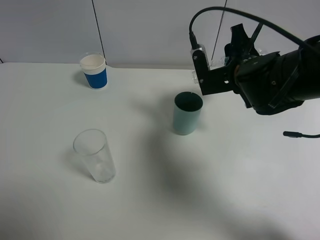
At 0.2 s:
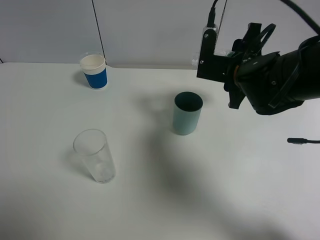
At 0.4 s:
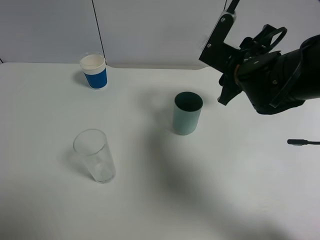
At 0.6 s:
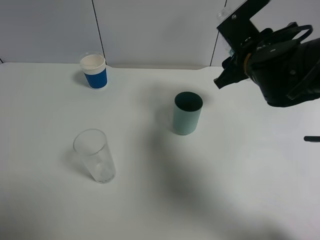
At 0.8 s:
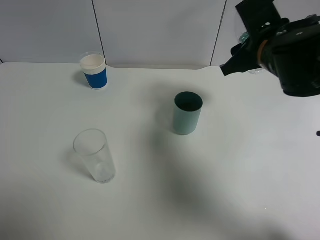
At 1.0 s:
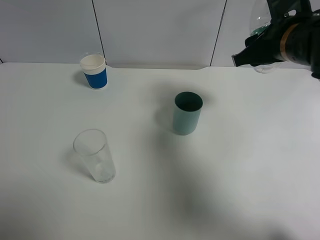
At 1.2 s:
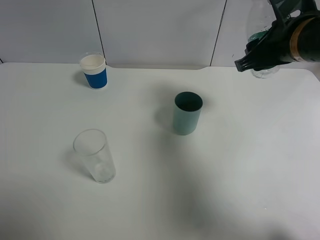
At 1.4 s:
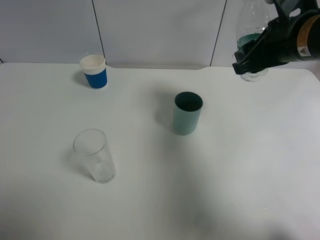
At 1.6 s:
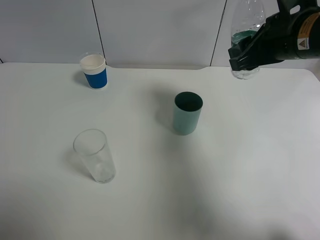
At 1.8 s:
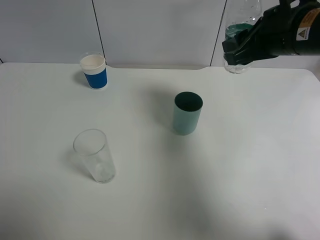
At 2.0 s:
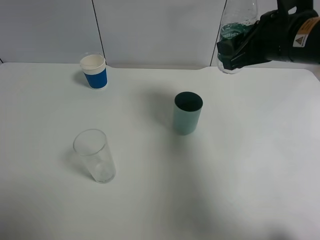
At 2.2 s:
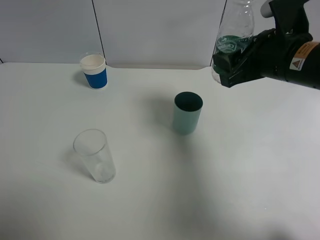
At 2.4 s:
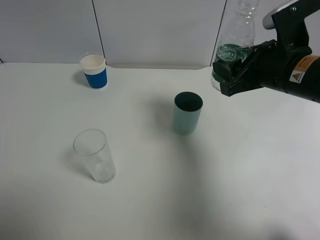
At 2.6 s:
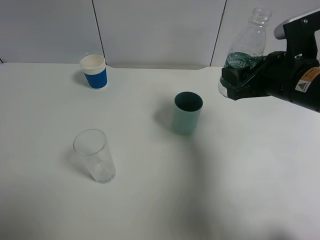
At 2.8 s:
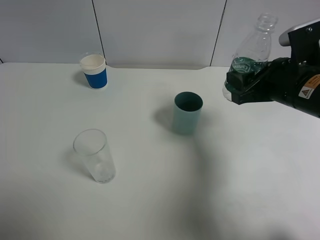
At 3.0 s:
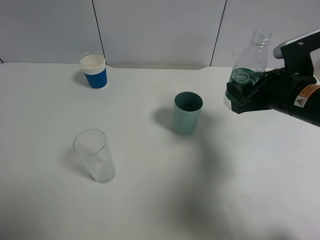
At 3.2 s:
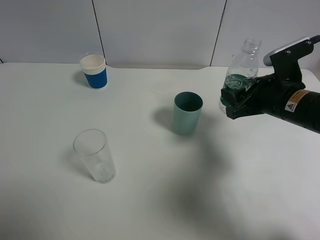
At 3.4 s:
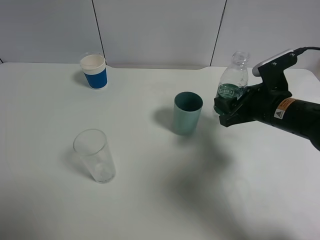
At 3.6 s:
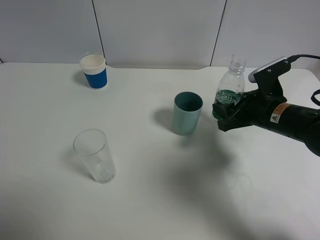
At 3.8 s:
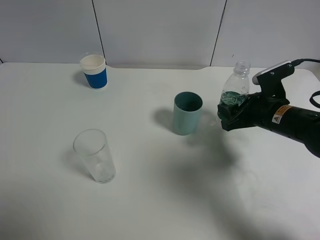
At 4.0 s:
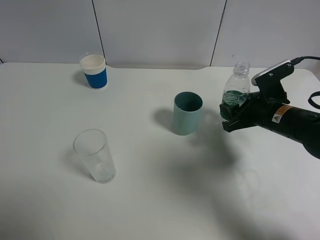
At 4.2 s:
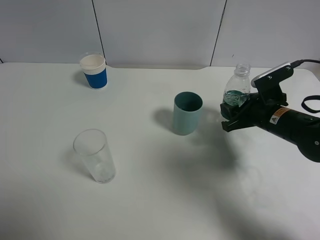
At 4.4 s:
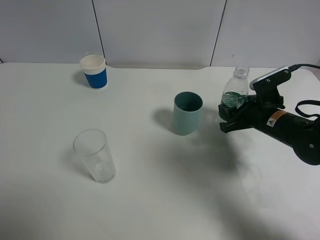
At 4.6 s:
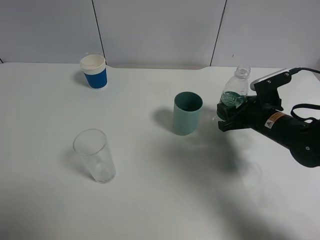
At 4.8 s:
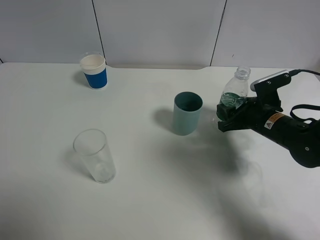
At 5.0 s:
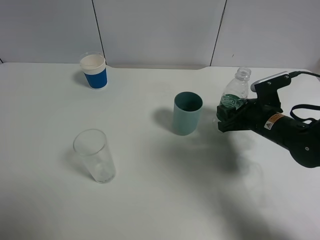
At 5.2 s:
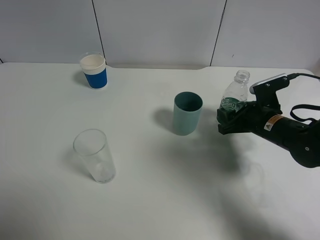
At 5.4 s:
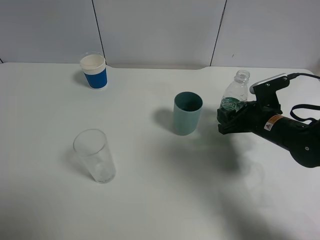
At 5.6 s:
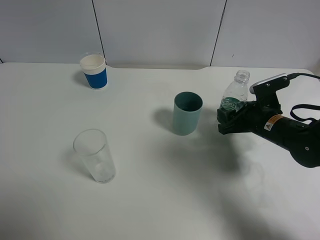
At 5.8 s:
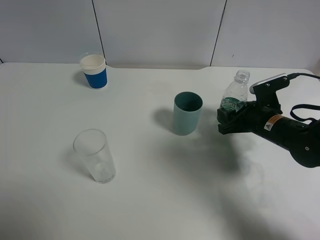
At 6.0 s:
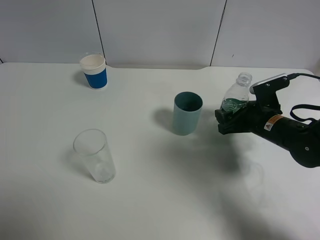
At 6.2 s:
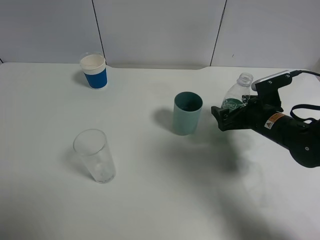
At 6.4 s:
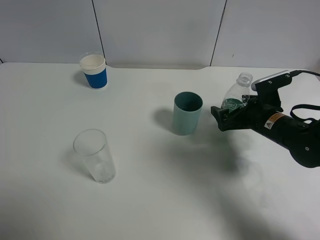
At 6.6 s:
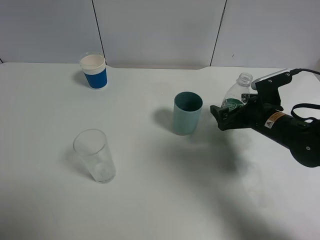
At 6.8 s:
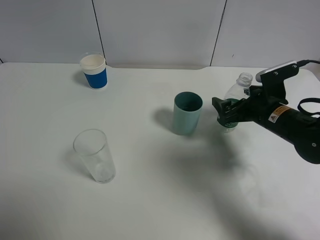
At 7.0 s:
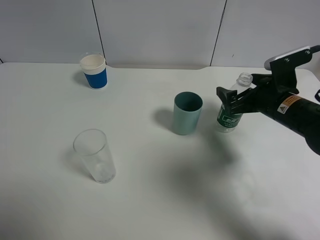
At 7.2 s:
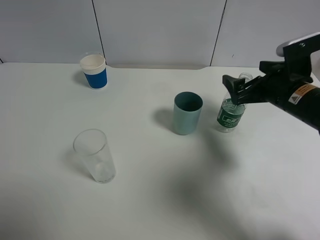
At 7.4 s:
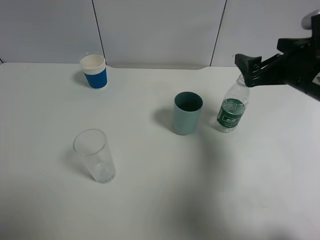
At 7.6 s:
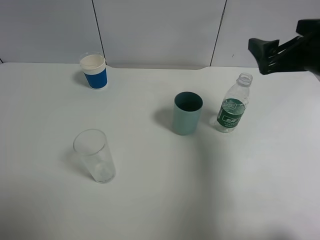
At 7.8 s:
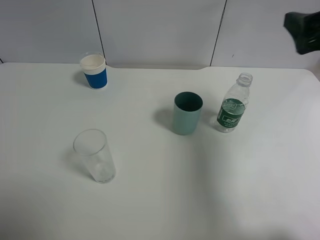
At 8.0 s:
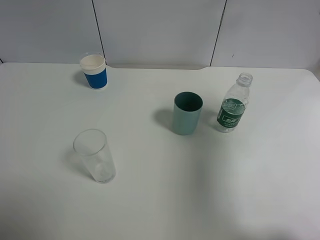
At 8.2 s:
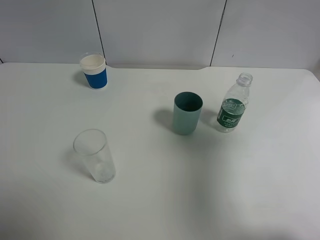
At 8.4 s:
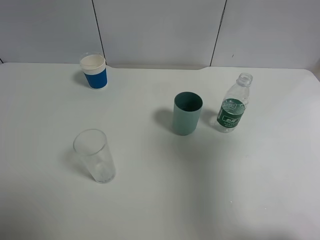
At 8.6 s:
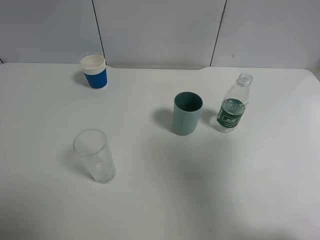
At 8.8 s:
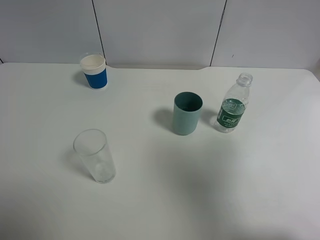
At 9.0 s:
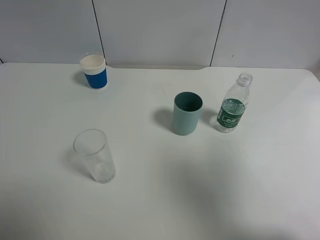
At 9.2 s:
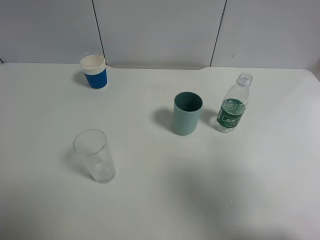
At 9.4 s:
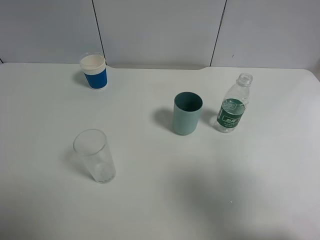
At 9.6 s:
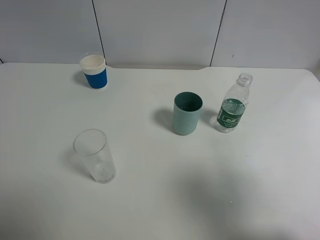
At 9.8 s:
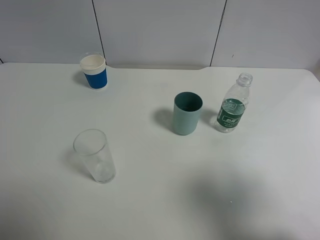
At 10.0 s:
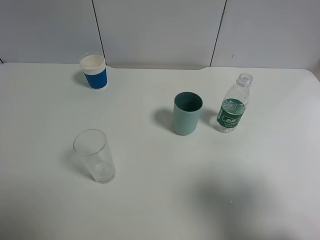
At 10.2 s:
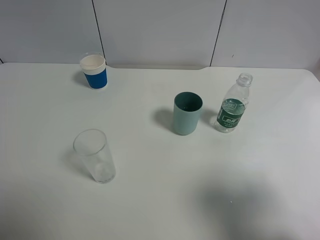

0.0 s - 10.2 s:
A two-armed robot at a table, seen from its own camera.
Task of the whole recording: use a gripper to hold the bottle of the drink and pour it into a random cup.
Step, 0.0 s - 6.2 s: Place the mineral water bottle on the table with the right gripper.
0.0 s - 1.4 s: The right gripper moves upward, roughly 10 cm.
1.4 s - 3.0 s: The right gripper travels downward by approximately 10 cm.
3.0 s - 4.4 s: The right gripper heads downward, covering approximately 10 cm.
4.4 s - 5.8 s: There are only small adjustments of the grippers.
5.8 s - 7.2 s: The right gripper travels upward by roughly 10 cm, and opens.
7.2 s - 8.8 s: The right gripper travels backward and upward by approximately 30 cm.
8.8 s - 10.2 s: The right gripper is displaced downward by approximately 10 cm.

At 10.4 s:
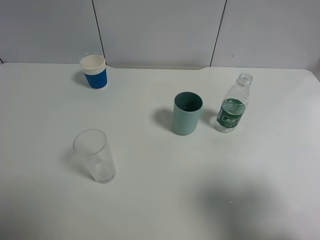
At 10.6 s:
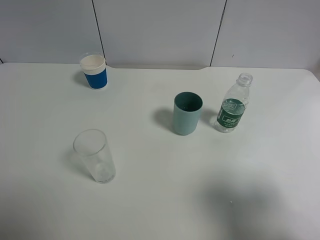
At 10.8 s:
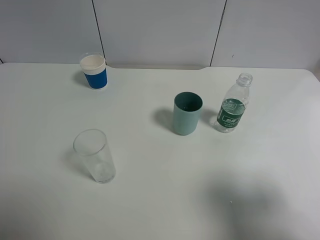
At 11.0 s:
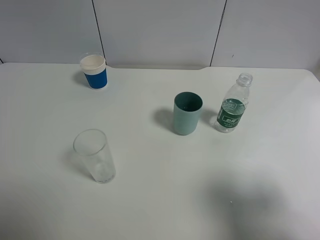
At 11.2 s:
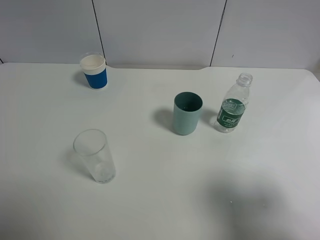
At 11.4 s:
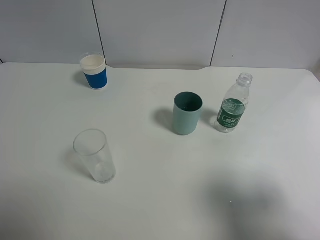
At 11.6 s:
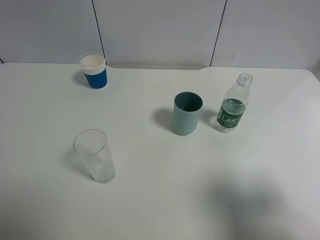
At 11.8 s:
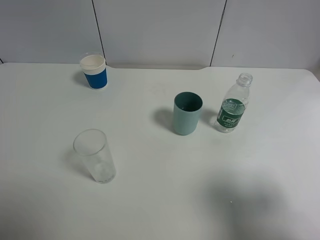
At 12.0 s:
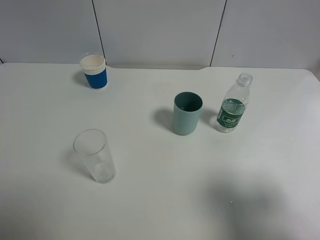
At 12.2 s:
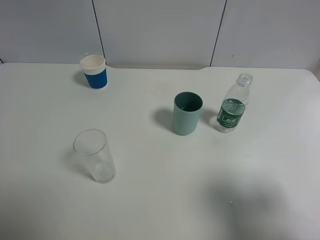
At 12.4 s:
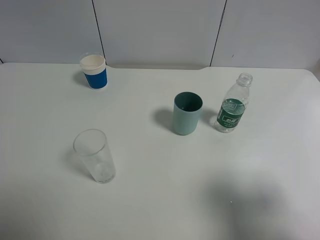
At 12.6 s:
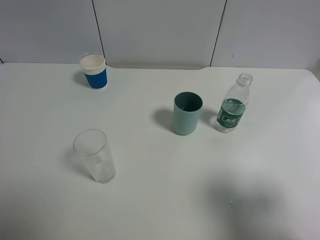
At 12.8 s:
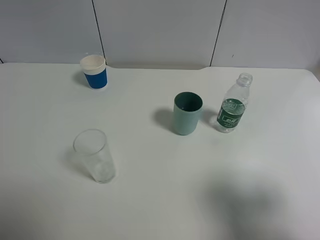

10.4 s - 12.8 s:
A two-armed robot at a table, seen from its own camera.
Task of the whole recording: use a gripper to hold the bottle of the drink and pour it into a random cup.
11.6 s - 12.8 s: Both grippers stay put.

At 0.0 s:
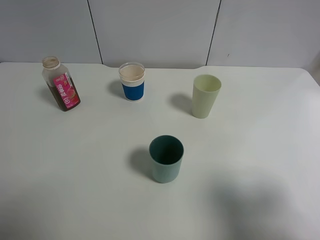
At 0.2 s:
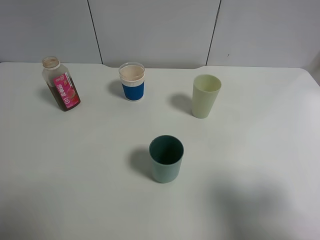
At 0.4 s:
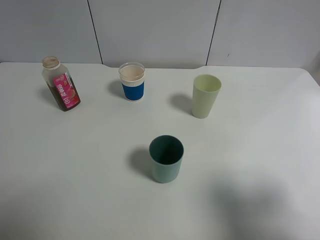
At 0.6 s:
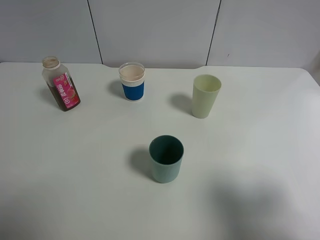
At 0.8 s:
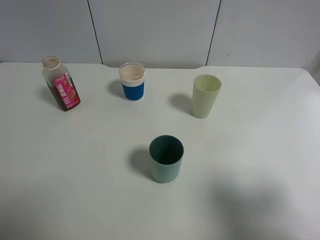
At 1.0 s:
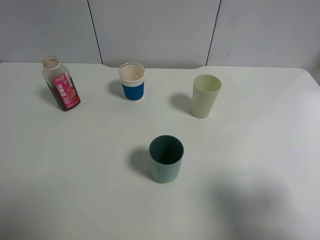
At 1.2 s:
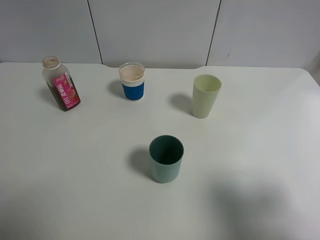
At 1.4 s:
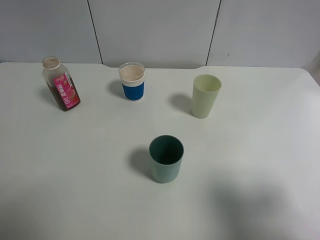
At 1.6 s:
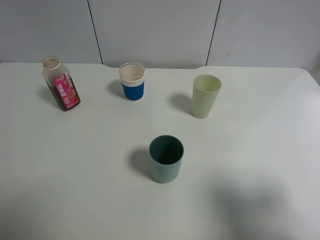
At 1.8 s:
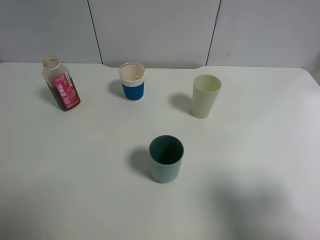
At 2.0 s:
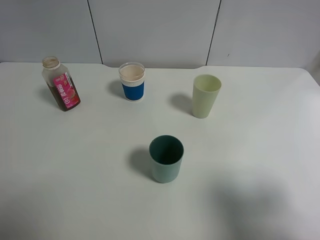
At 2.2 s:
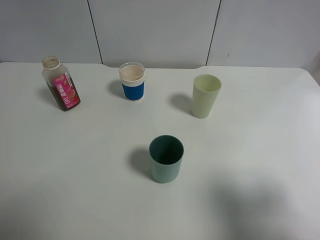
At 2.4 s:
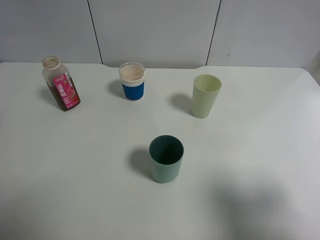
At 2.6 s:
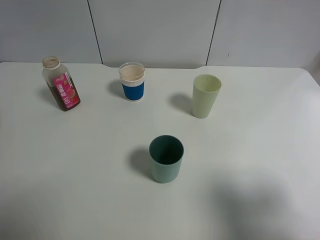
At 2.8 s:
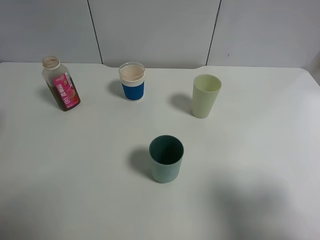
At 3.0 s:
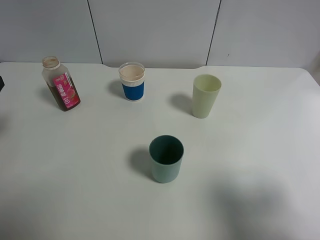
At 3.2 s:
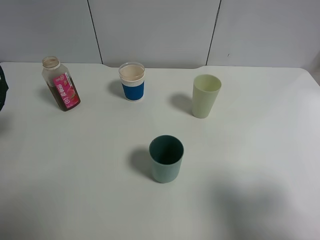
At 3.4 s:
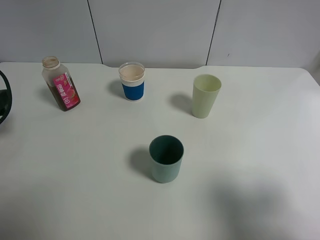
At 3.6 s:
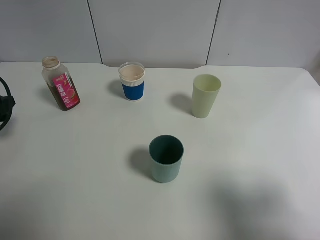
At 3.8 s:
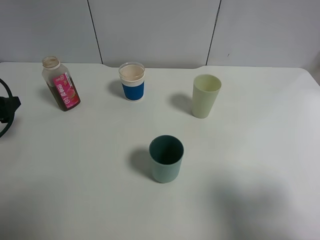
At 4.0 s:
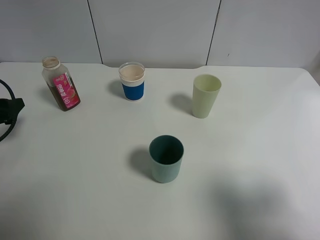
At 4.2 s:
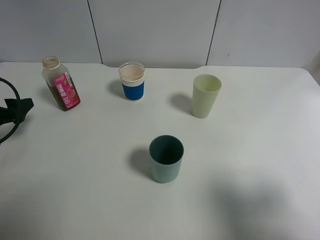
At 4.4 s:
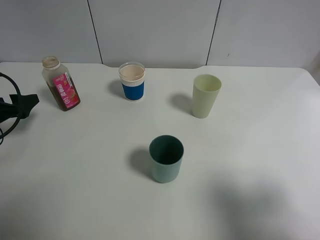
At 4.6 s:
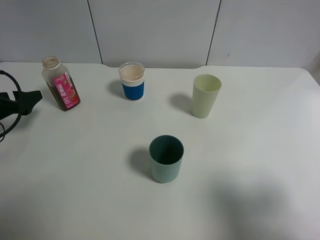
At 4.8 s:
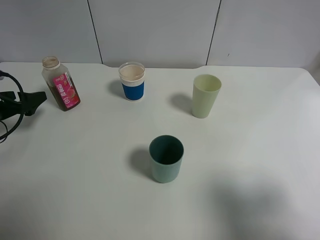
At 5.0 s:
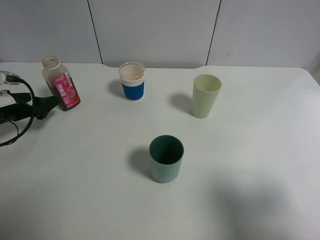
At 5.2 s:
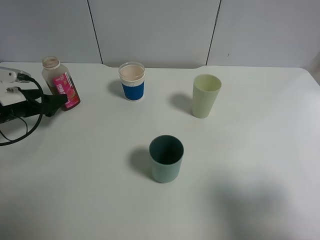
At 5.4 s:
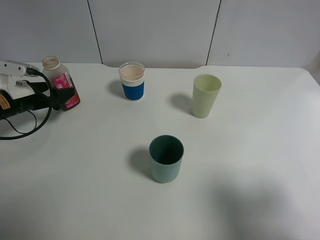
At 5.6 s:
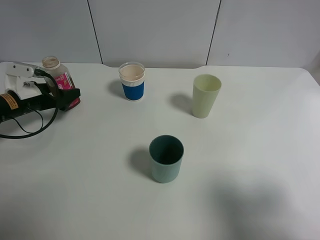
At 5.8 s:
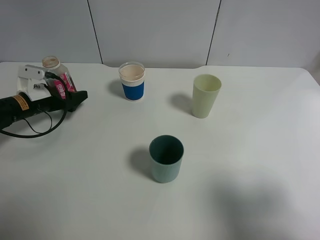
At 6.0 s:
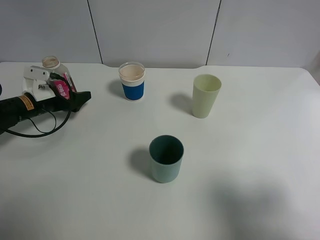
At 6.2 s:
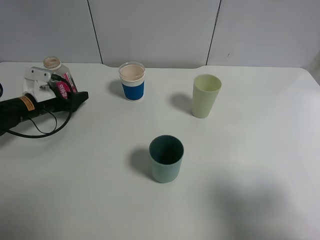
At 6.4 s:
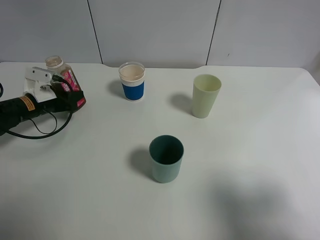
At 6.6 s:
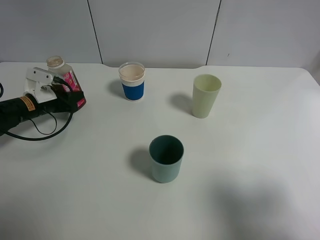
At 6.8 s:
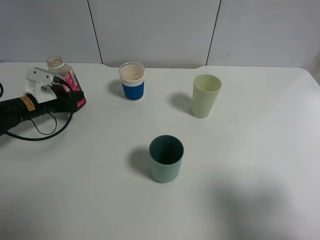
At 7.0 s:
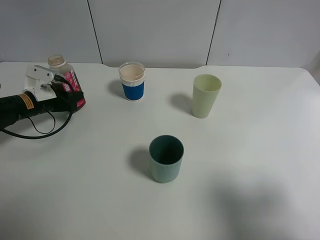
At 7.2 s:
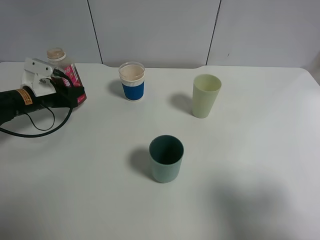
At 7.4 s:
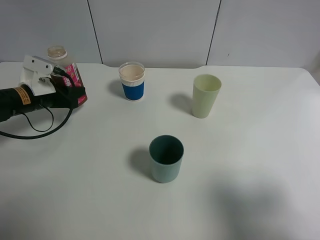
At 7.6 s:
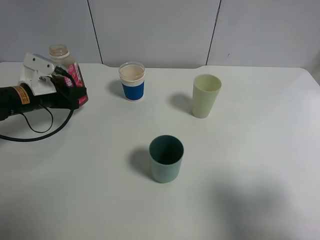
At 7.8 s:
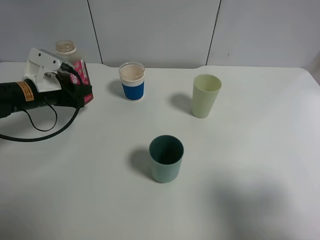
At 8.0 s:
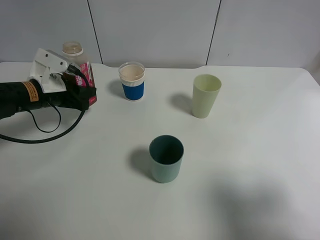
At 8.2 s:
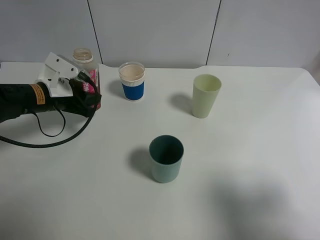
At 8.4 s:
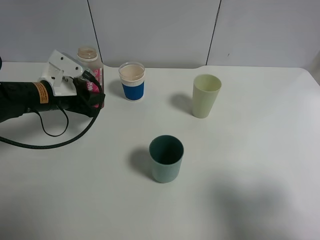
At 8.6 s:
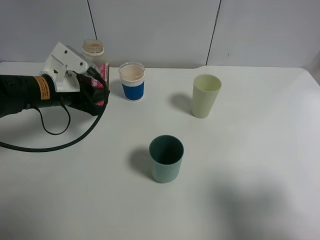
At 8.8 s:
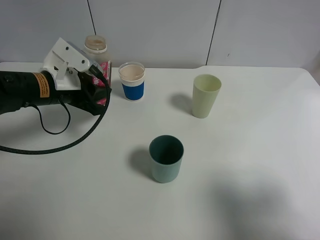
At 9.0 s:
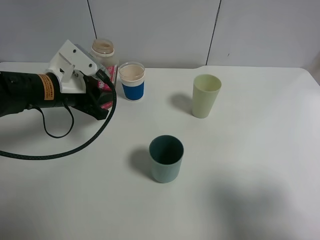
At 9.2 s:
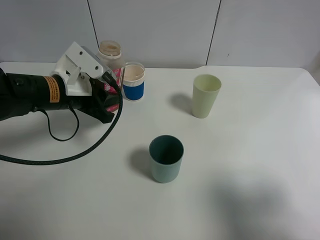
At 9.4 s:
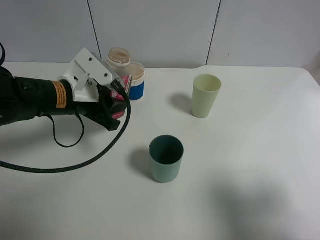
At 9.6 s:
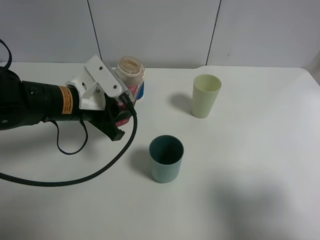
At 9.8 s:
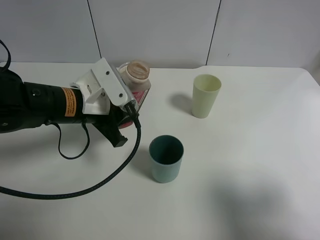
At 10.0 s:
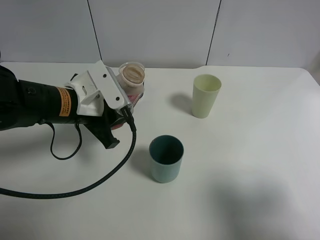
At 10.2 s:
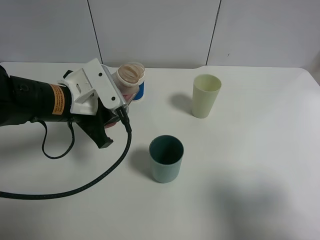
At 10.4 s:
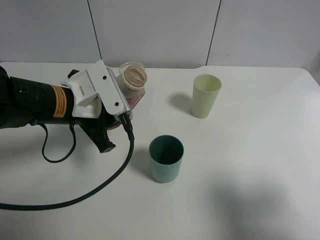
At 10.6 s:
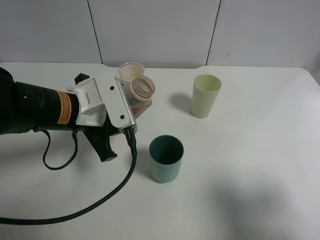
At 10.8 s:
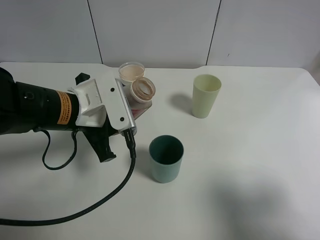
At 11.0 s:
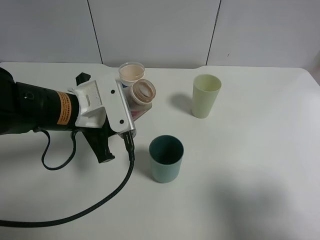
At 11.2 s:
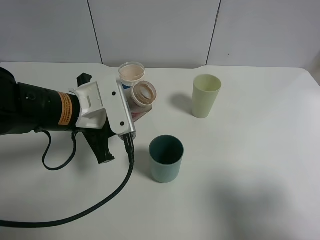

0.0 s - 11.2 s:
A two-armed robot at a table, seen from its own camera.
Task of the whole recording: use a gripper to hold the bottle of the drink and pour it into a random cup.
Step, 0.0 s - 6.4 s: Grasp the cranberry juice bottle with the left gripper.
3.2 s - 4.8 s: The left gripper shifts approximately 10 cm downward and forward.
4.8 s - 6.4 s: The left gripper is displaced forward and to the right by about 10 cm, and closes.
6.4 s - 8.0 s: The left gripper goes about 10 cm upward and to the right.
8.0 s - 9.6 s: The left gripper goes approximately 10 cm to the right and backward.
